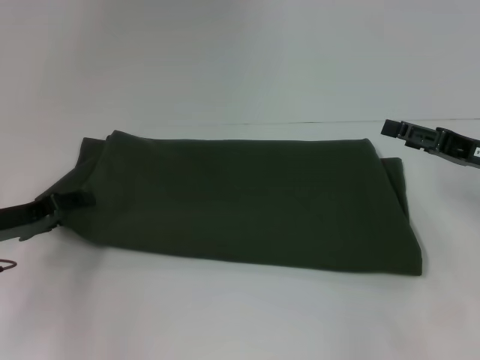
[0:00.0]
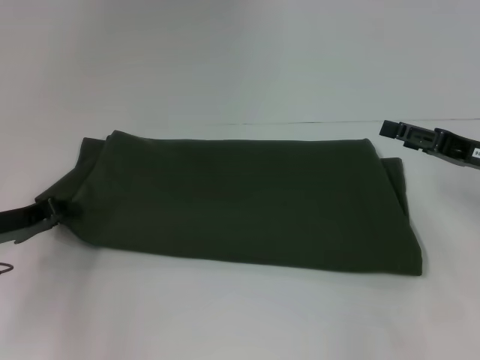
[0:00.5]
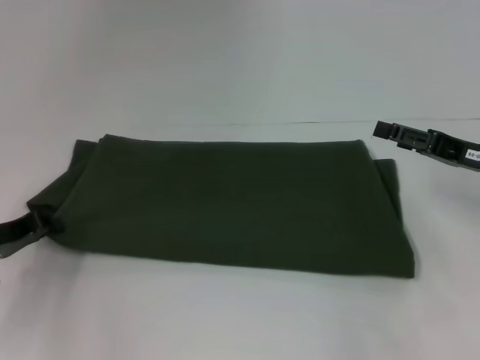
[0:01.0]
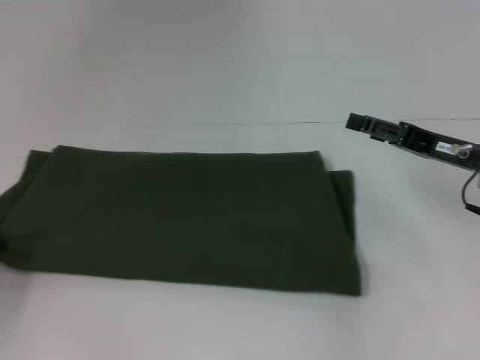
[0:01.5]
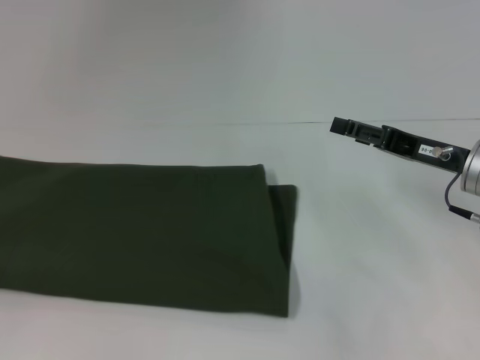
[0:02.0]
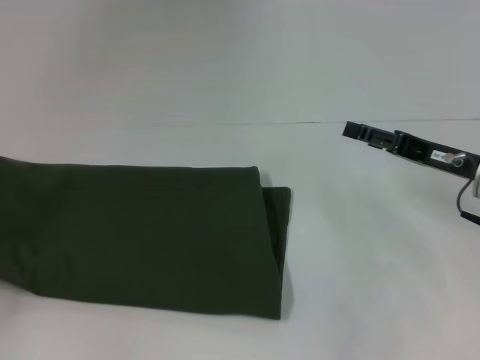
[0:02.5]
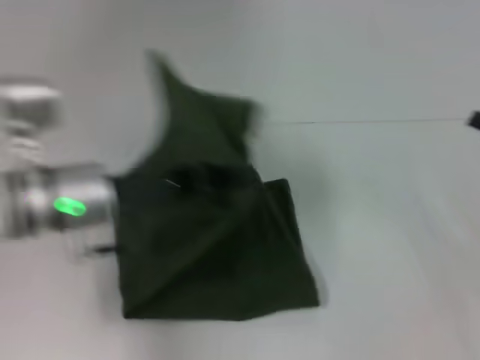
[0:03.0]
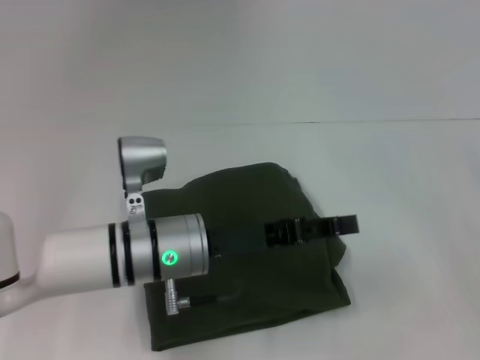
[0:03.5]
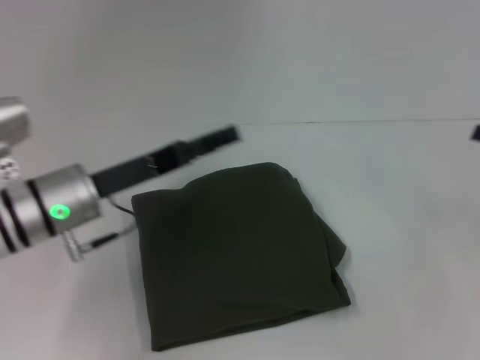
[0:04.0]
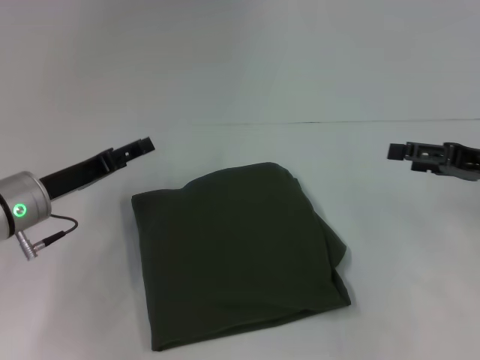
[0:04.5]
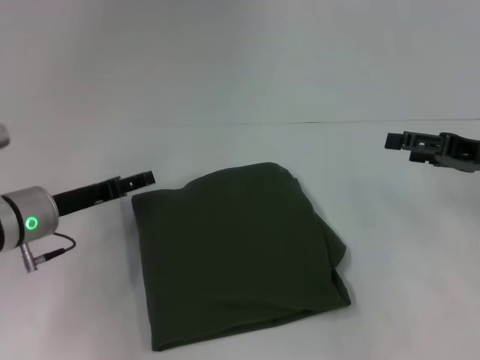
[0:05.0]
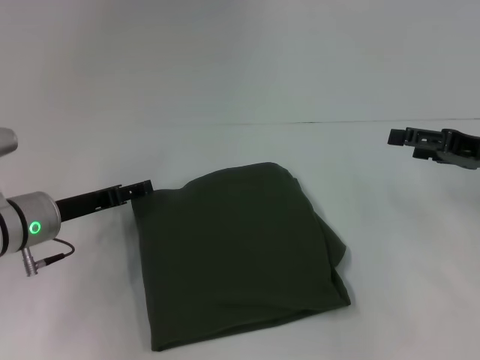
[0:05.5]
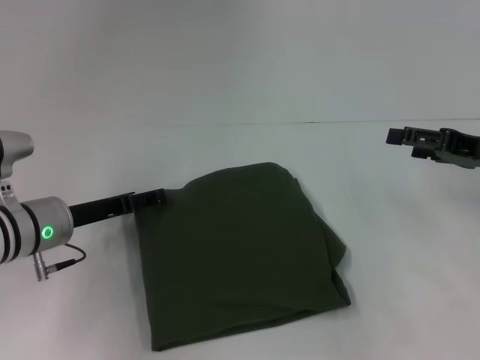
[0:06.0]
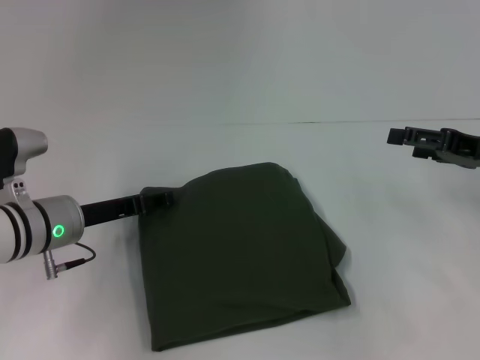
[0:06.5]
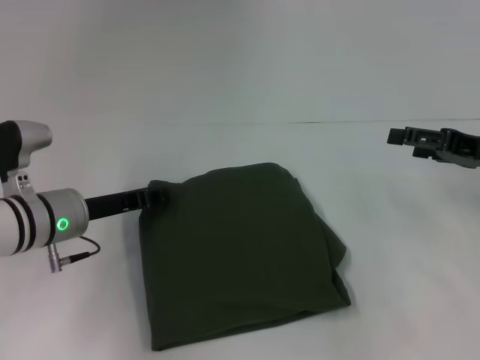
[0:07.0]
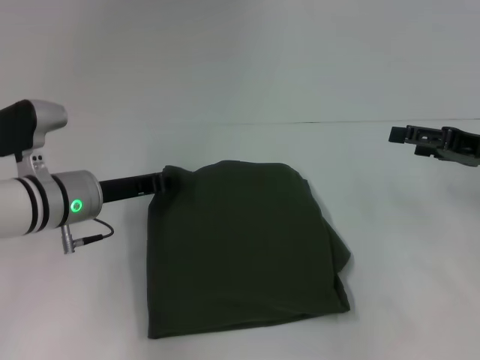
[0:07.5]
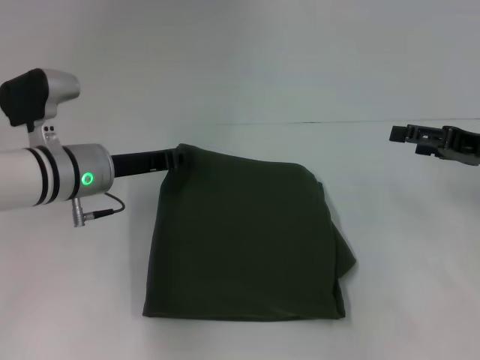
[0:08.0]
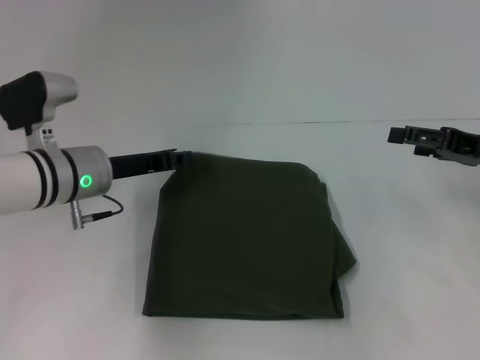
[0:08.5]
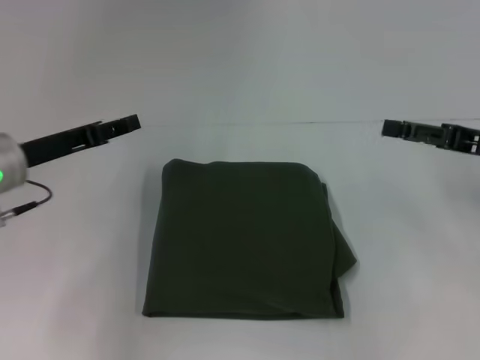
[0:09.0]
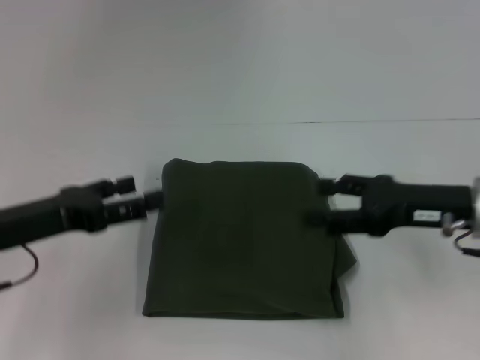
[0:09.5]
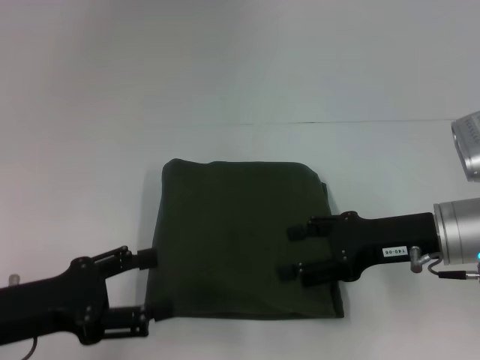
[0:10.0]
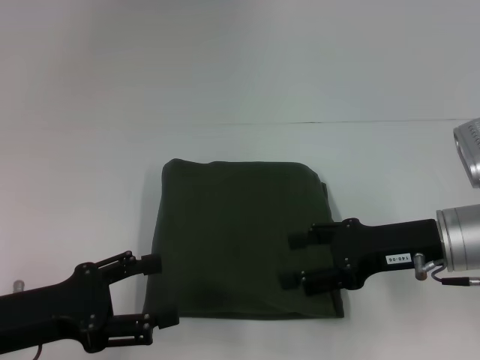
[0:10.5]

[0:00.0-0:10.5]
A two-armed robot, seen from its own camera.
Step, 0:00.0 to 0:03.0: Fold the clothes with your left hand.
0:00.0 to 0:02.0: The right gripper shifts some 5 cm to the left; the left gripper travels to the left and backward by roughly 15 cm, and closes its fingers.
0:02.0 to 0:04.0: The right gripper moves to the right, some 15 cm. The left gripper travels to the right by some 25 cm, and opens.
0:04.0 to 0:06.5: The right gripper shifts roughly 5 cm to the left. Meanwhile the left gripper shifts some 5 cm downward.
0:06.5 to 0:08.5: The left gripper ends up roughly 5 cm from where it was, and closes its fingers.
0:08.5 to 0:10.5: The left gripper goes approximately 20 cm backward and to the left, and opens its fingers; the right gripper travels to the left and backward by roughly 10 cm.

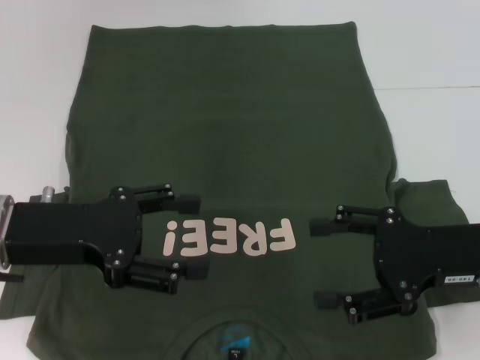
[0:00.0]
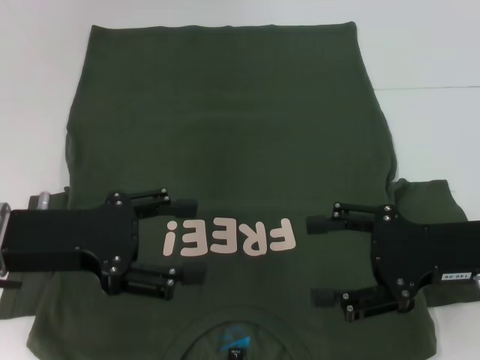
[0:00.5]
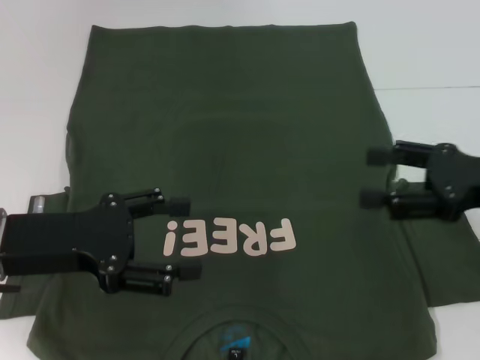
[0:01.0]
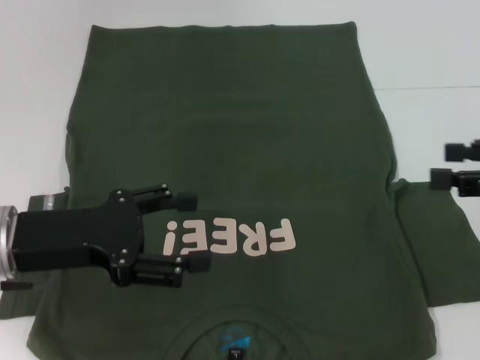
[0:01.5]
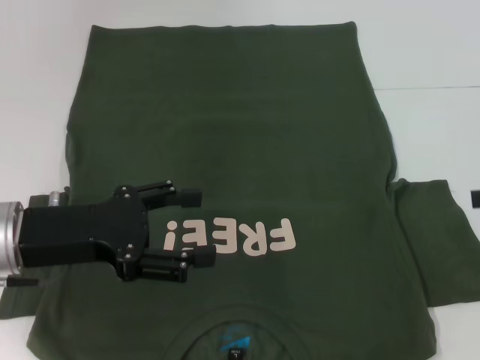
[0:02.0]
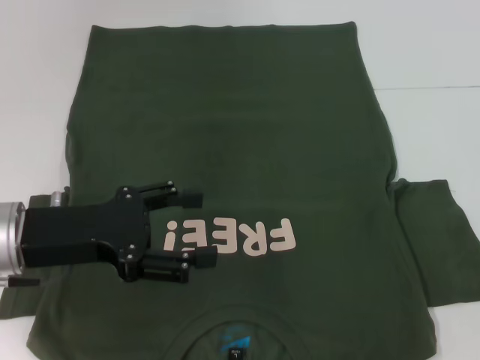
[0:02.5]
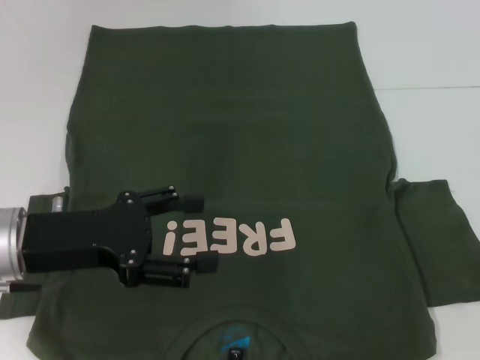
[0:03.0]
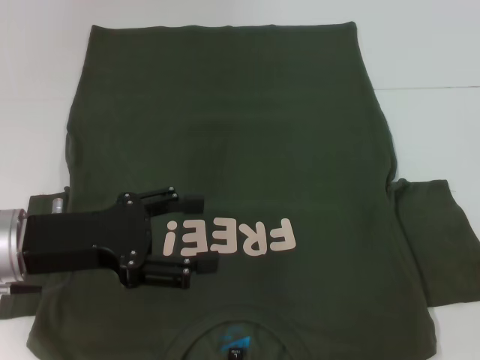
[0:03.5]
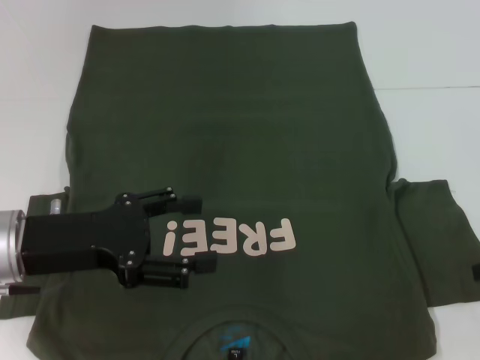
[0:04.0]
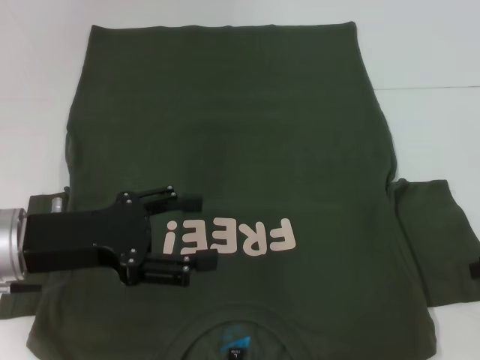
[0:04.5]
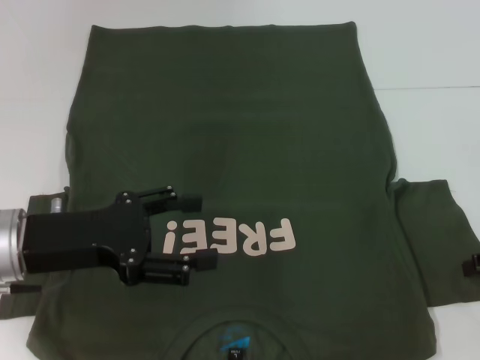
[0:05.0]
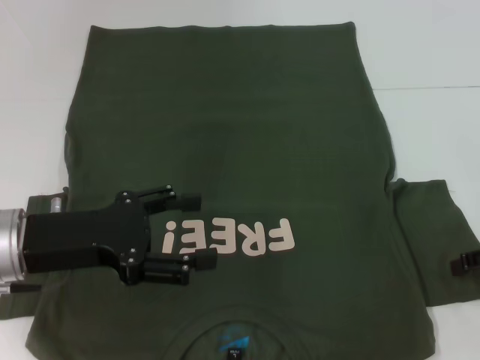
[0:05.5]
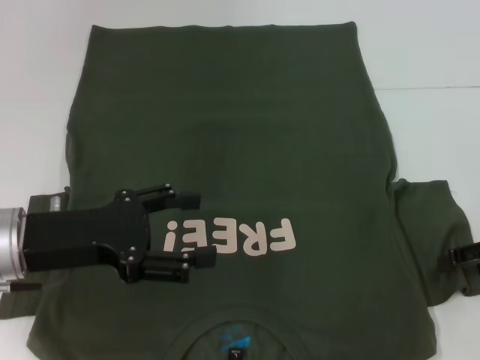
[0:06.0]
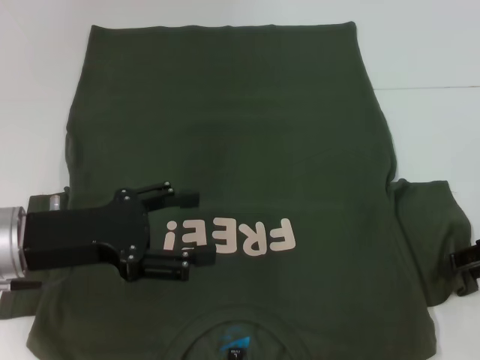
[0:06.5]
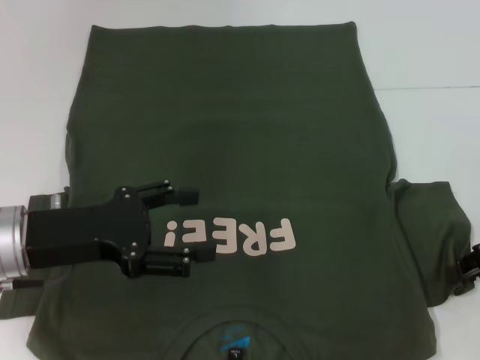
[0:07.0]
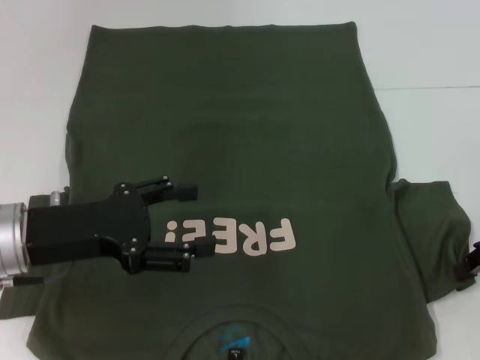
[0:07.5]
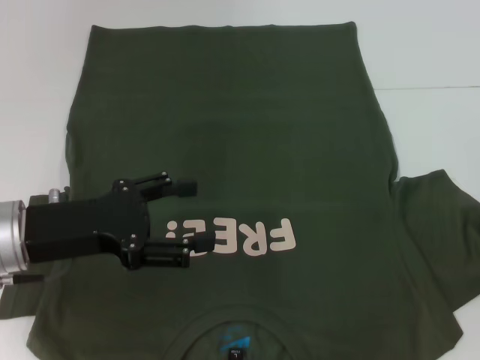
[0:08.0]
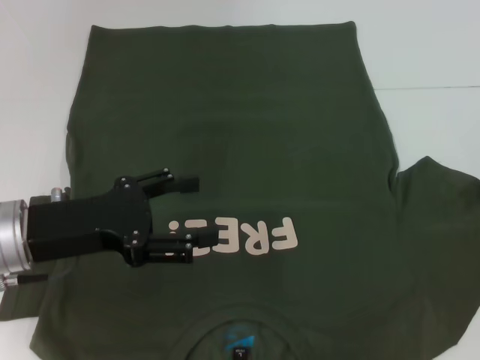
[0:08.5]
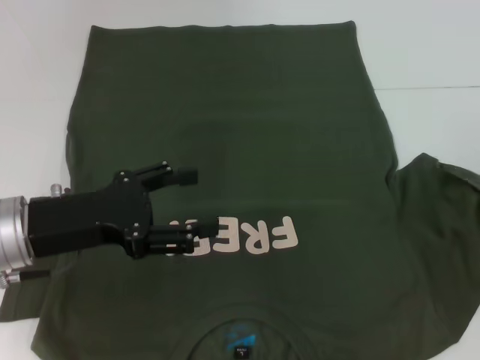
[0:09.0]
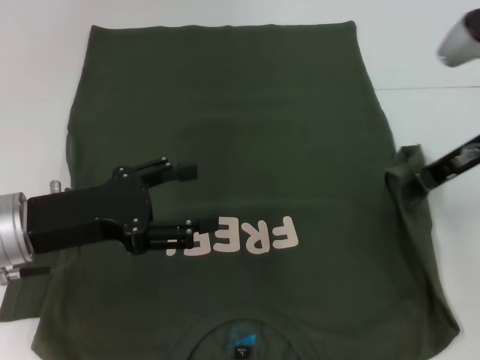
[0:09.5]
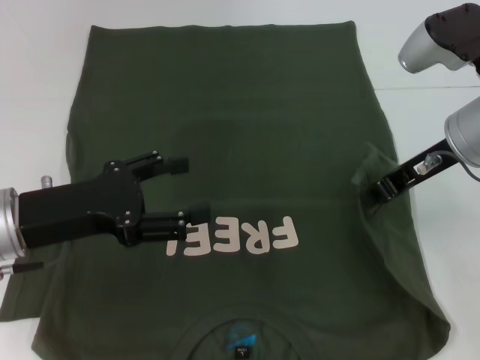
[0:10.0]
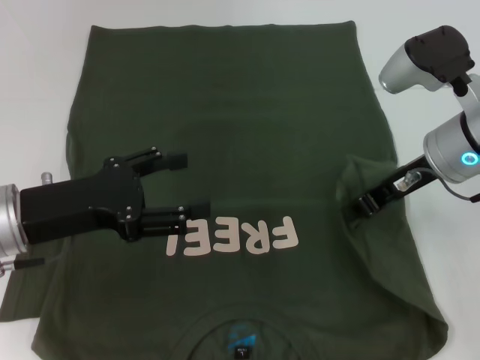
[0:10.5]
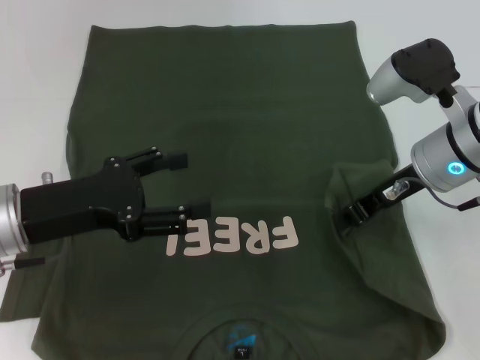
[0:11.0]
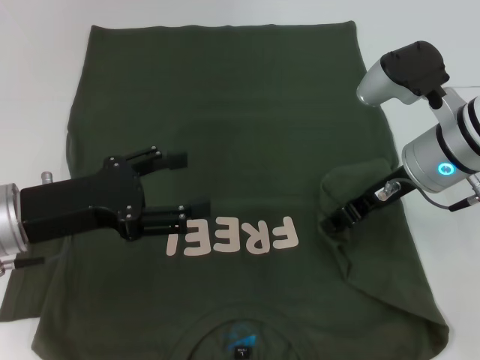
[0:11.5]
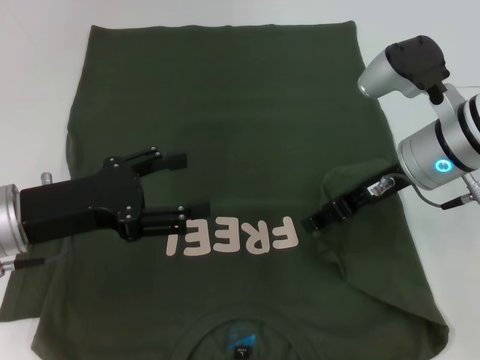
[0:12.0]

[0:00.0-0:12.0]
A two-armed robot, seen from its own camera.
0:00.0 to 0:02.0: The right gripper moves to the right and upward, some 15 cm.
0:02.0 to 0:04.0: The right gripper is displaced downward by some 5 cm.
0:04.0 to 0:06.0: The grippers make only small movements.
0:06.0 to 0:08.0: The right gripper closes its fingers.
0:08.0 to 0:10.0: The right gripper goes roughly 15 cm to the left.
0:10.0 to 0:12.0: The right gripper opens.

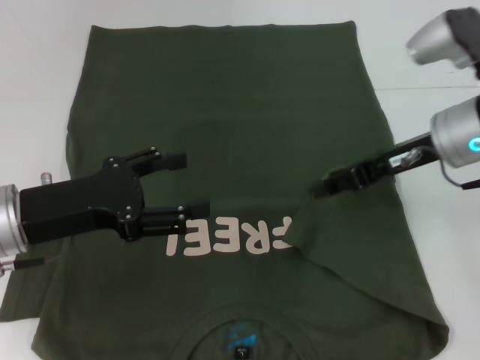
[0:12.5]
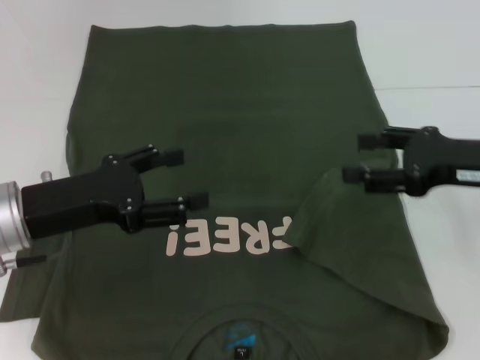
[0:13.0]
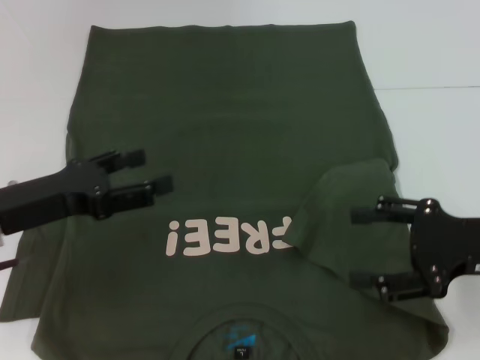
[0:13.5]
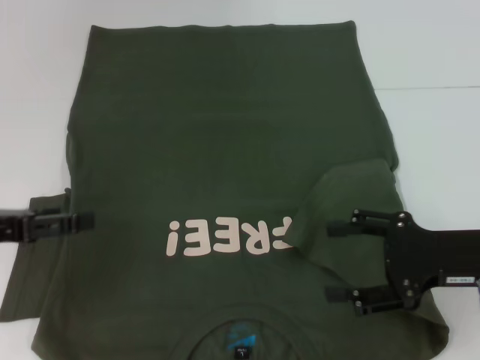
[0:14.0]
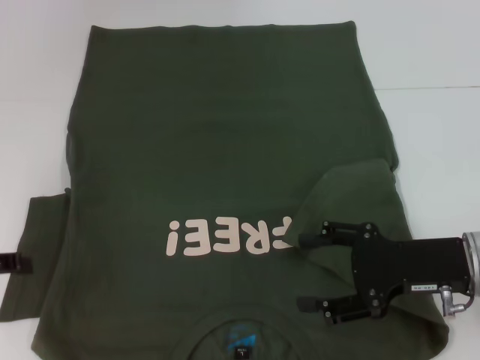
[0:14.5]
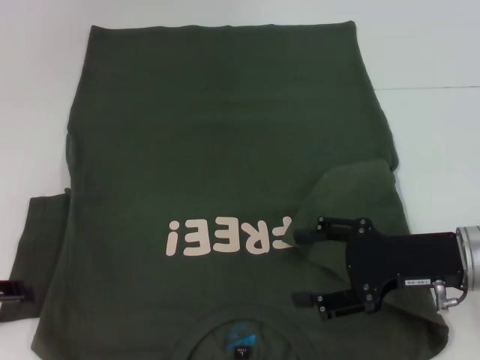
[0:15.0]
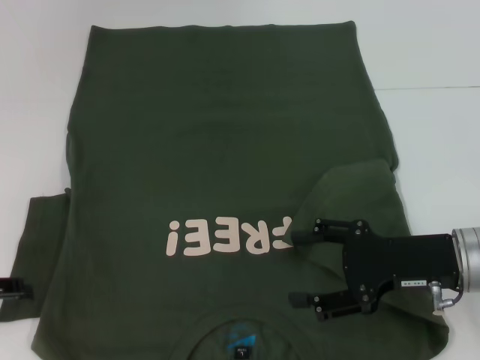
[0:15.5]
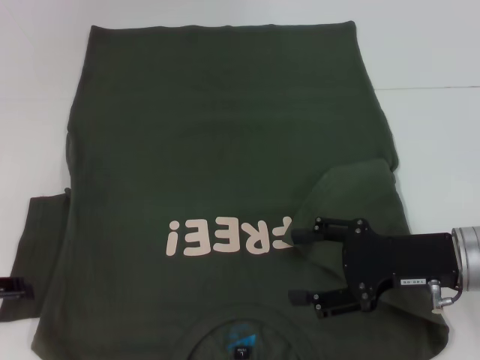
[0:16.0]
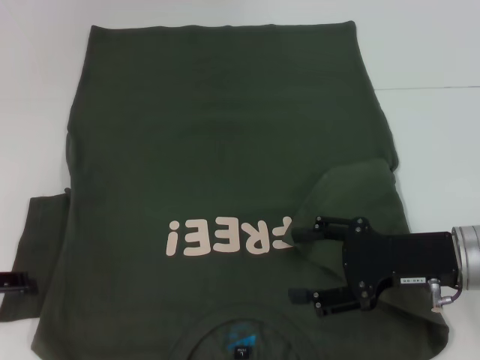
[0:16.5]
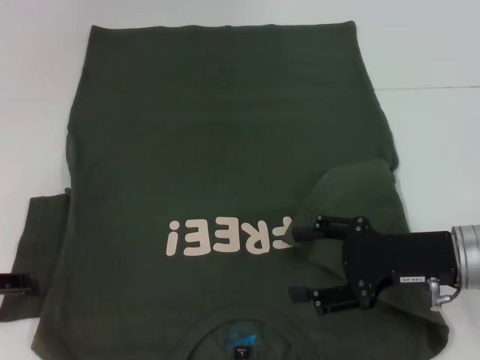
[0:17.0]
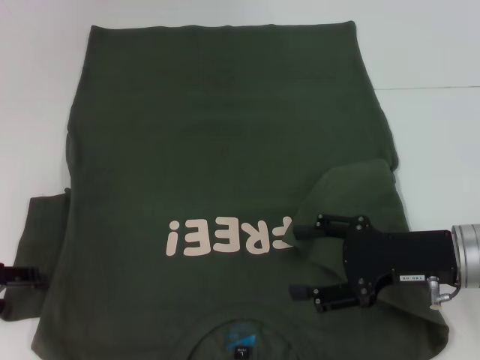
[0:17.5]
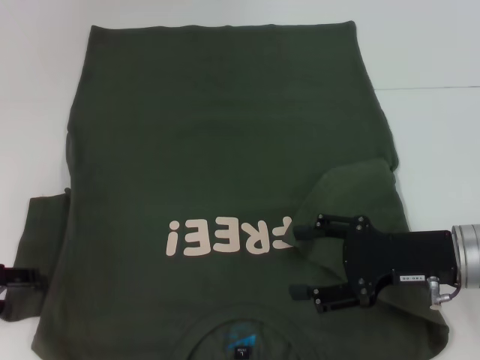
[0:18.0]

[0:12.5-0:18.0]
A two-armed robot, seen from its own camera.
0:12.5 to 0:14.5: The left gripper travels to the left by about 10 cm, while the right gripper moves backward and downward, some 15 cm.
0:14.5 to 0:18.0: The grippers stay close to where they were, moving slightly.
